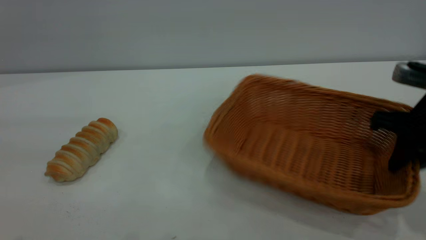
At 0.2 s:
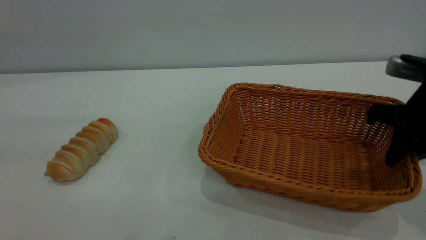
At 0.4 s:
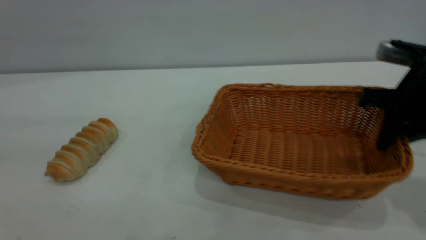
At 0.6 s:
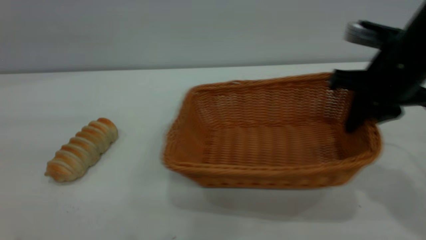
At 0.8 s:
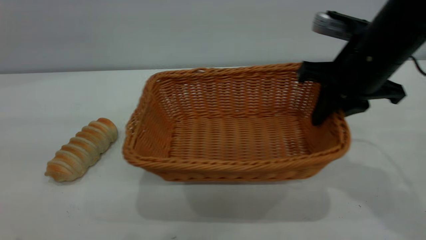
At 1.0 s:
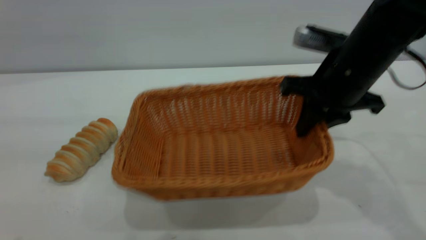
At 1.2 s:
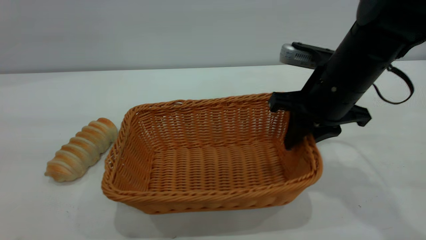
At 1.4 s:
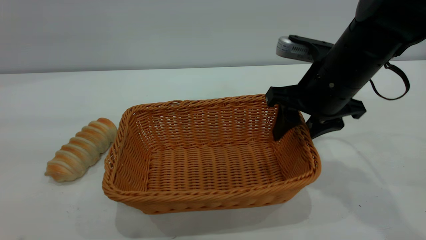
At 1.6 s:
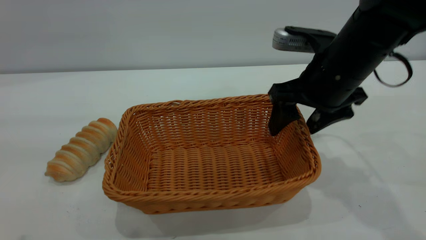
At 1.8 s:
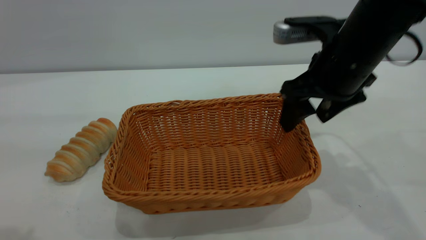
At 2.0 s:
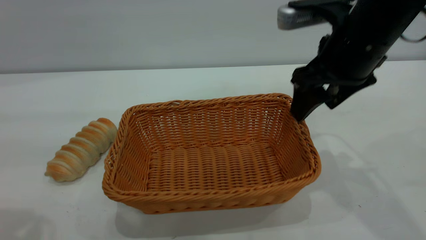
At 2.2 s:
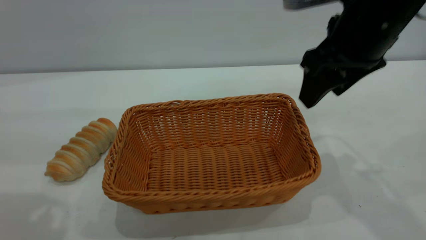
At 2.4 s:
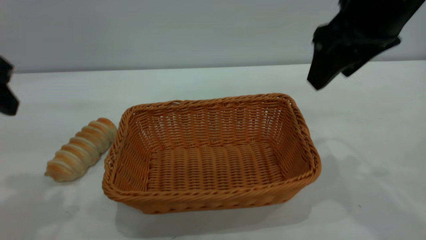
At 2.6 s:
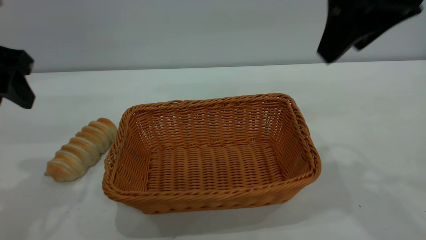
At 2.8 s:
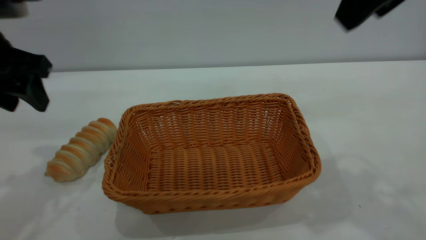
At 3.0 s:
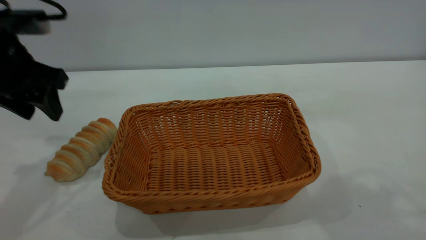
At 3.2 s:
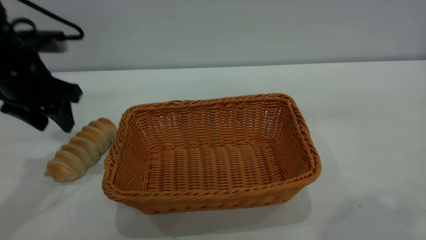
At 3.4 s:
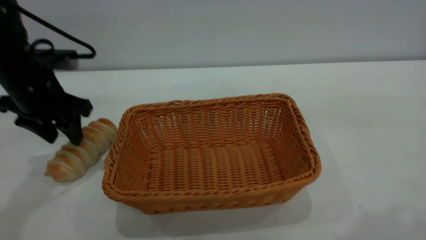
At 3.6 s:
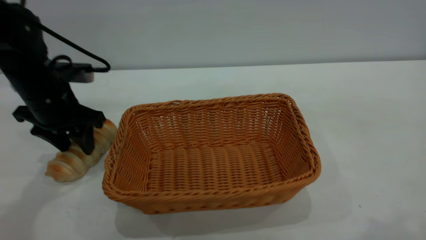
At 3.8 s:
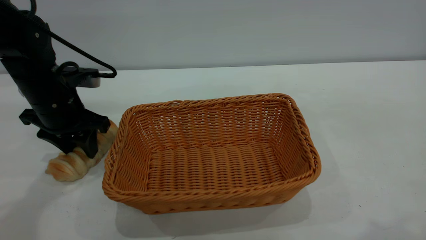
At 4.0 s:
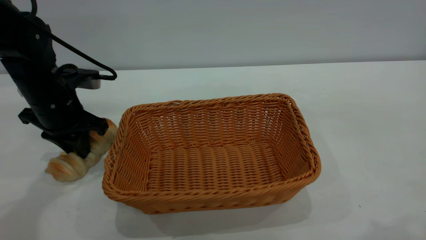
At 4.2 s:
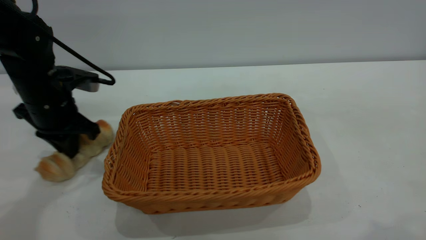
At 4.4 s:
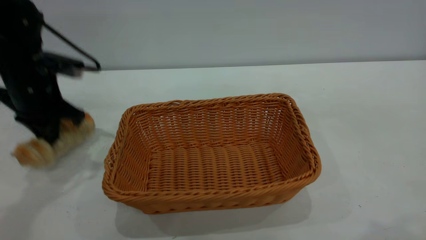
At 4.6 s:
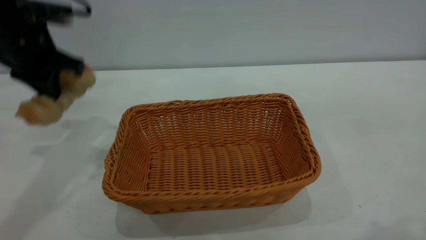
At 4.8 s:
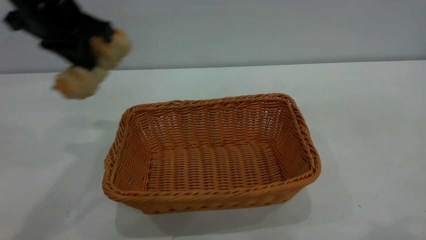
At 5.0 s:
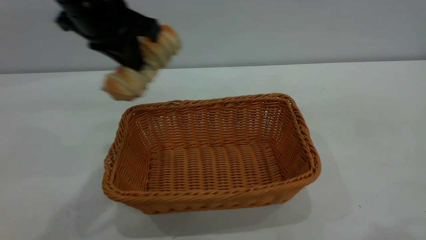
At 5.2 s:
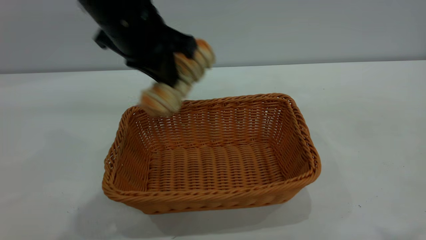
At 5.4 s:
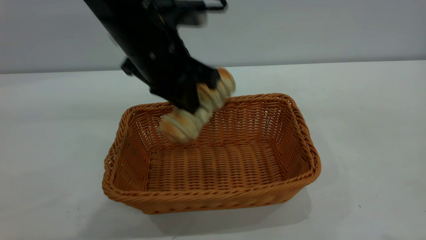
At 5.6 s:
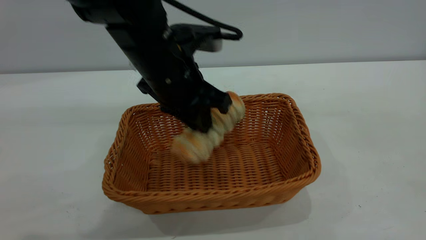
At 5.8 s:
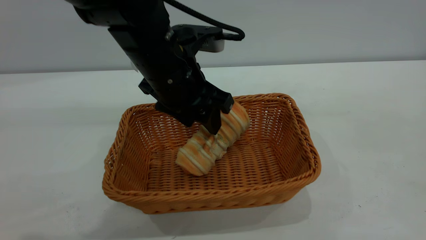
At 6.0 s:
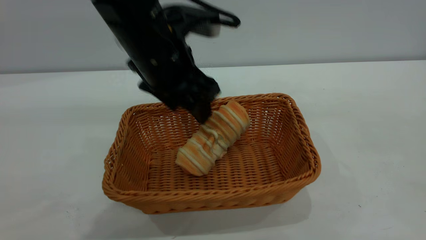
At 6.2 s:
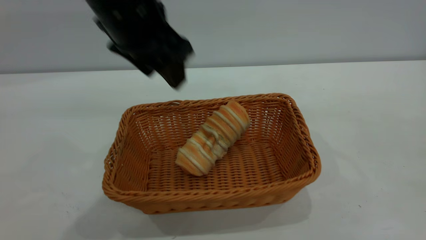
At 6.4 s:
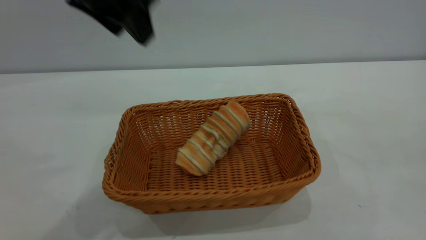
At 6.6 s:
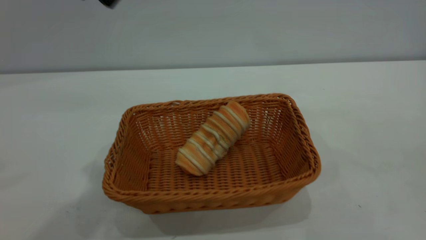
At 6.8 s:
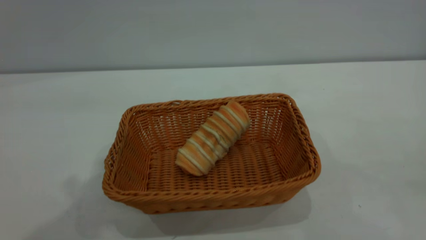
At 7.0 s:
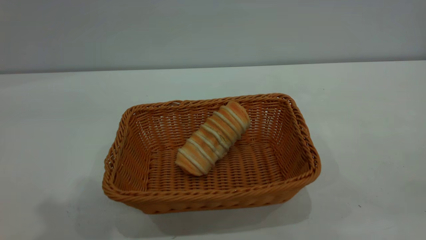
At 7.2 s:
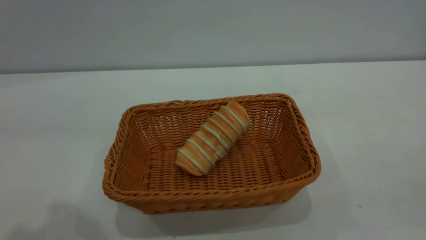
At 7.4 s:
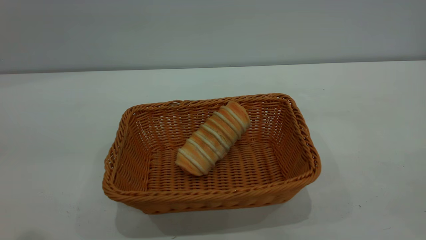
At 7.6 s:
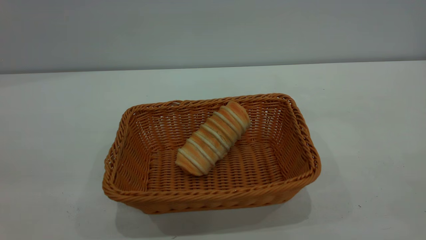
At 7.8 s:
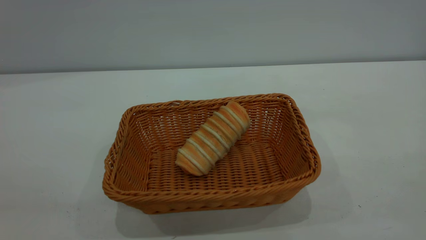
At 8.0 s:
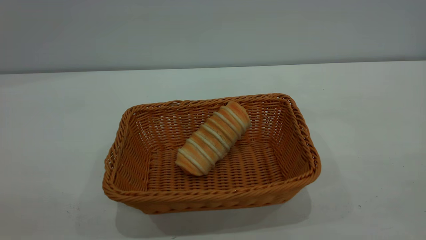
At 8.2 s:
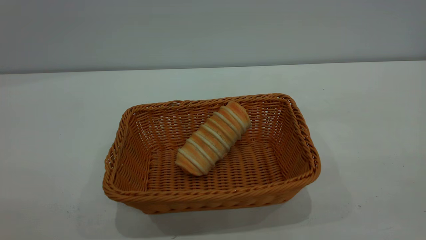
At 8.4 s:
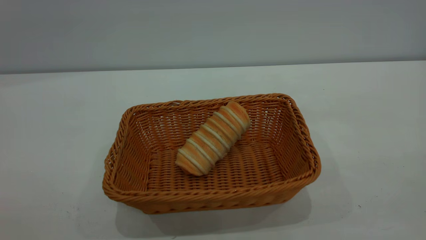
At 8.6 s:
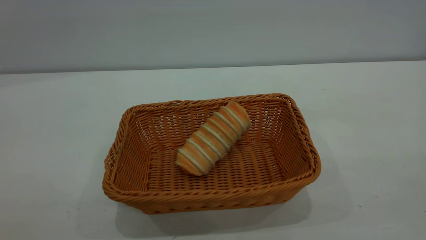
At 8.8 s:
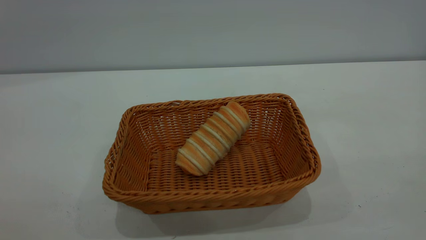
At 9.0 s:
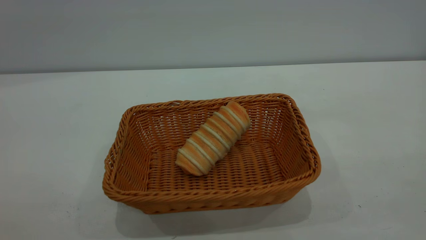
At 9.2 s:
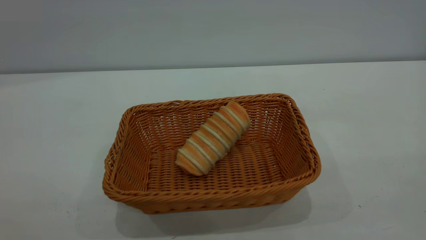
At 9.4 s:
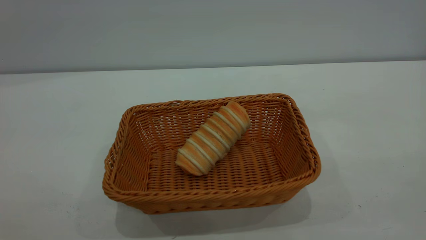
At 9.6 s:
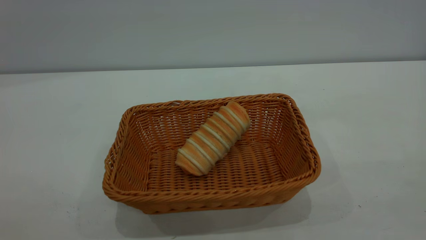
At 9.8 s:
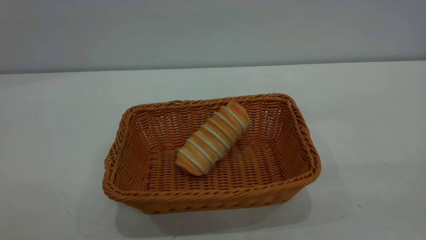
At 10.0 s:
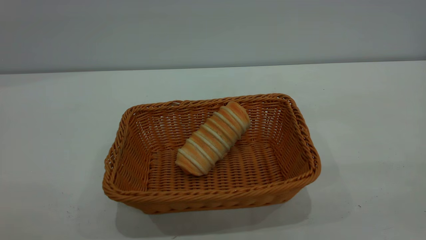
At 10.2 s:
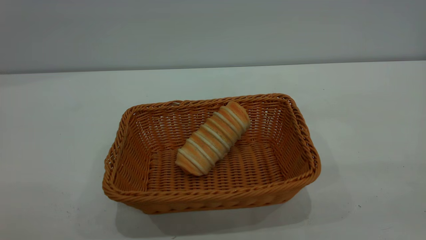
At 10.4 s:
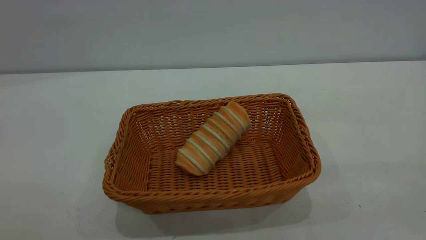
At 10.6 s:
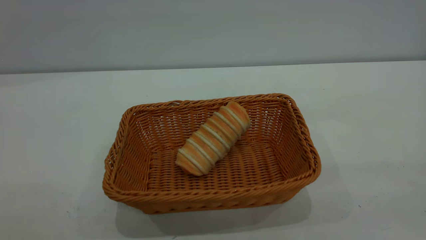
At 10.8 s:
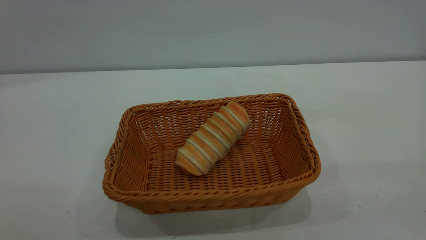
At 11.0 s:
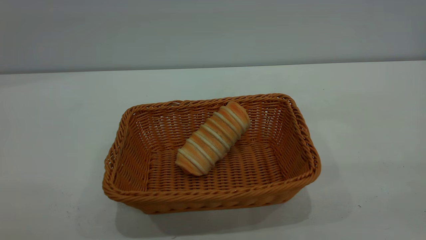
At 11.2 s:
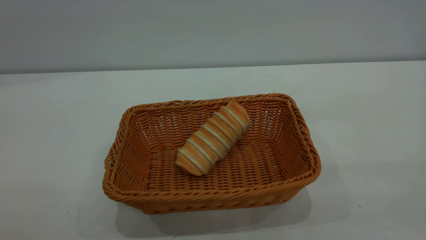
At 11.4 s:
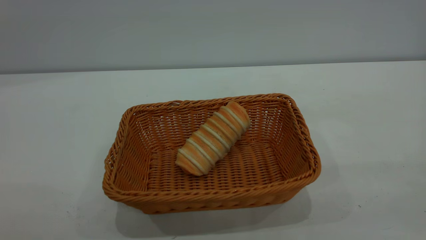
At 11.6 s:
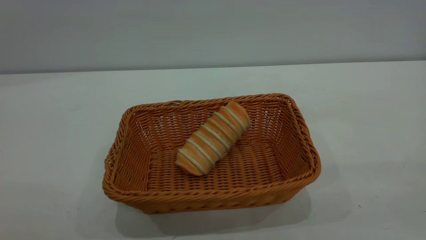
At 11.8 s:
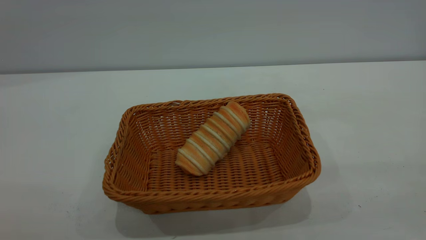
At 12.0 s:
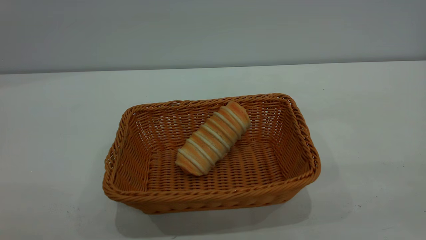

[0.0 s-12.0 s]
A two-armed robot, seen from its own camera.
Task of the whole recording: One hand grasps the yellow basket and places it in the middle of the table, while the other hand picks up the long bread and puts it into the yellow basket.
Step, 0.0 to 2.0 s: Move the basket to the center of view.
Step, 4.8 to 6.2 s: place the bread into the basket.
0.0 to 1.6 s: The right gripper heads to the left and forward, covering some 15 cm, and opens its fingers.
1.6 to 3.0 s: The left gripper travels forward and downward by roughly 25 cm. Meanwhile the right gripper travels upward and backward by approximately 25 cm.
3.0 to 4.4 s: The right gripper goes roughly 5 cm backward. Meanwhile the left gripper closes.
4.4 to 6.0 s: The left gripper goes some 20 cm to the right, and opens up. The right gripper changes place by approximately 5 cm.
6.0 to 7.6 s: The right gripper shifts about 15 cm backward and downward; the left gripper moves backward, to the left and upward, approximately 35 cm.
10.4 to 12.0 s: Both grippers stay about where they are.

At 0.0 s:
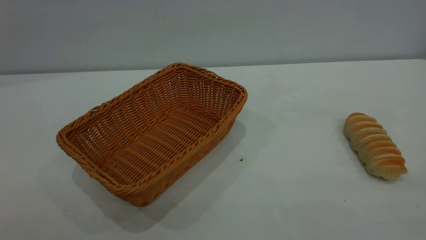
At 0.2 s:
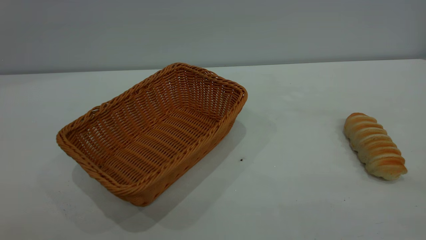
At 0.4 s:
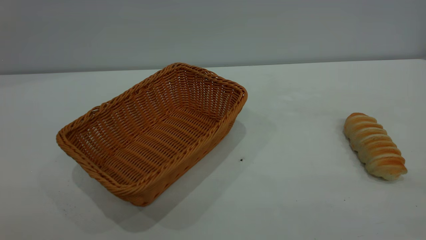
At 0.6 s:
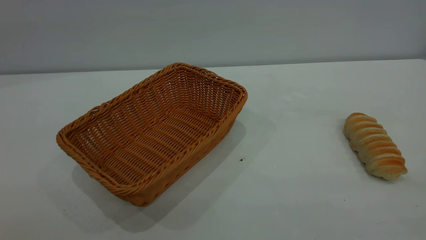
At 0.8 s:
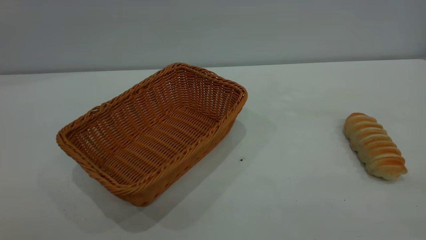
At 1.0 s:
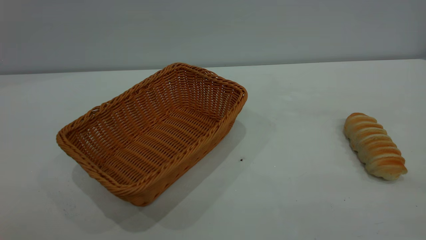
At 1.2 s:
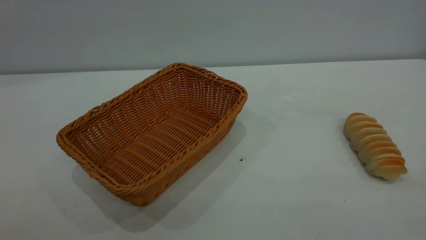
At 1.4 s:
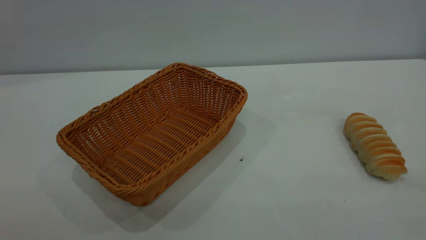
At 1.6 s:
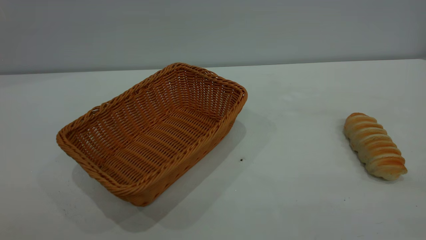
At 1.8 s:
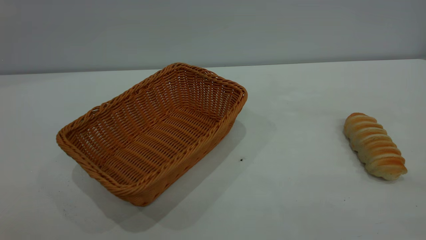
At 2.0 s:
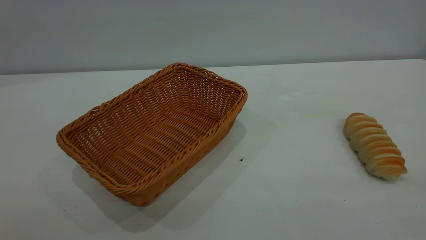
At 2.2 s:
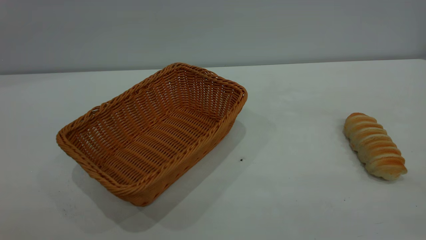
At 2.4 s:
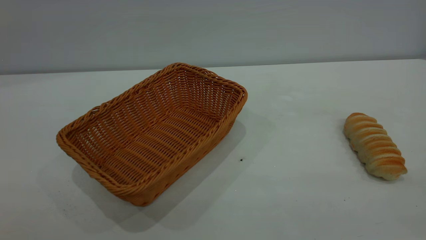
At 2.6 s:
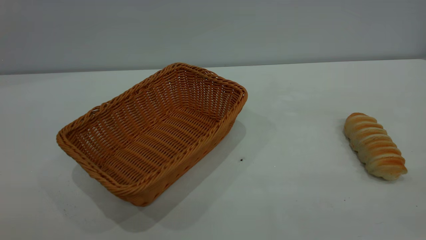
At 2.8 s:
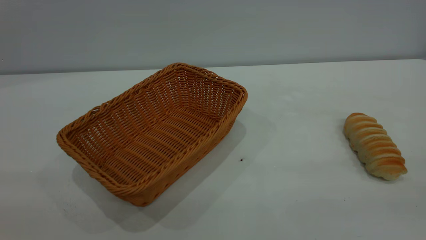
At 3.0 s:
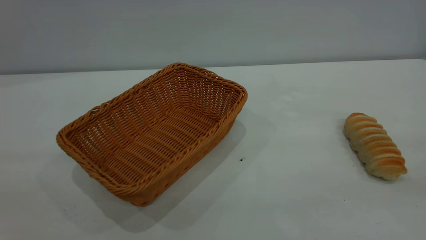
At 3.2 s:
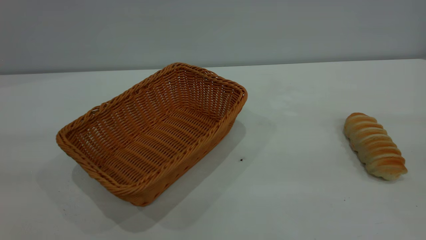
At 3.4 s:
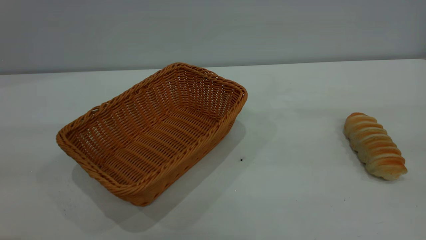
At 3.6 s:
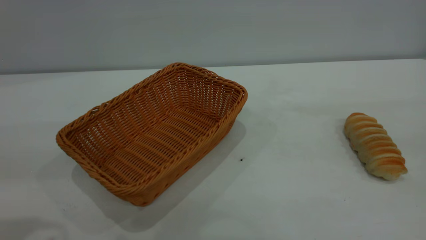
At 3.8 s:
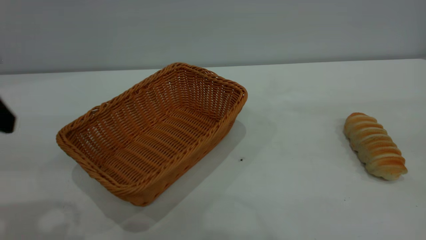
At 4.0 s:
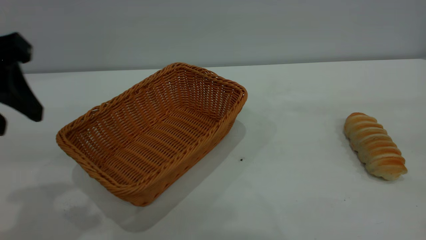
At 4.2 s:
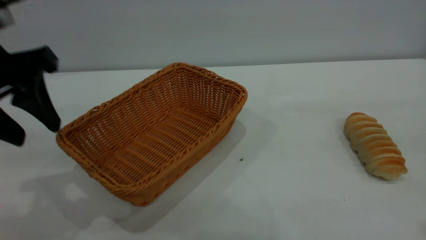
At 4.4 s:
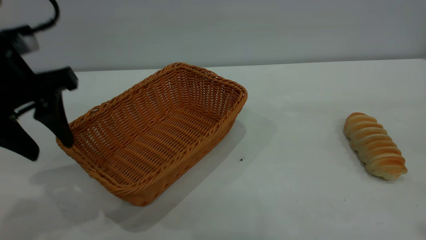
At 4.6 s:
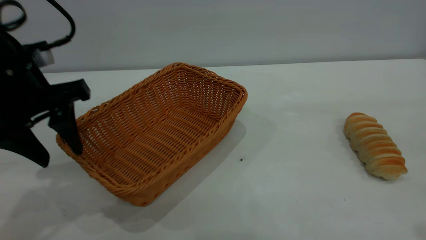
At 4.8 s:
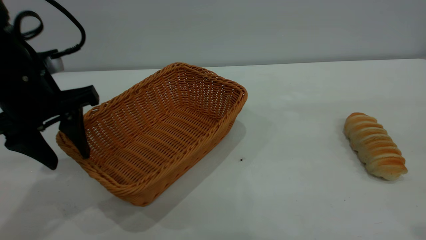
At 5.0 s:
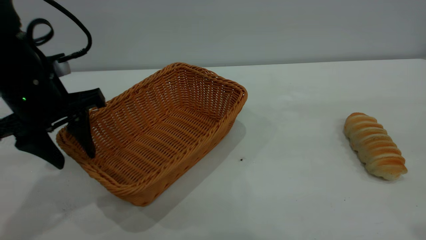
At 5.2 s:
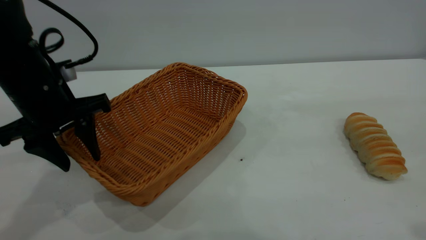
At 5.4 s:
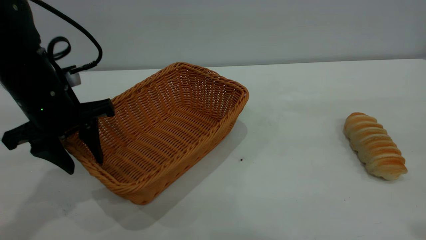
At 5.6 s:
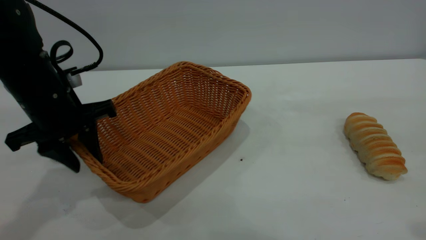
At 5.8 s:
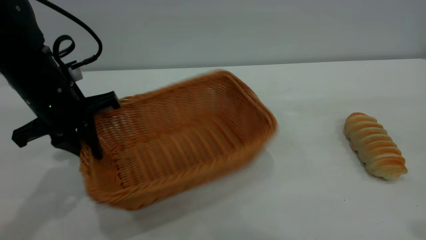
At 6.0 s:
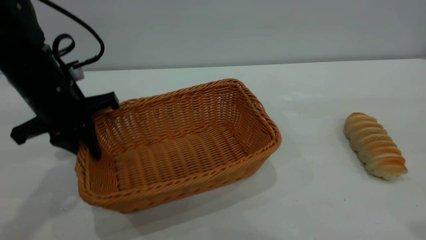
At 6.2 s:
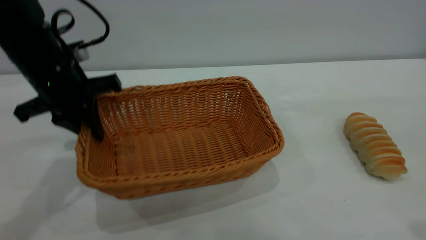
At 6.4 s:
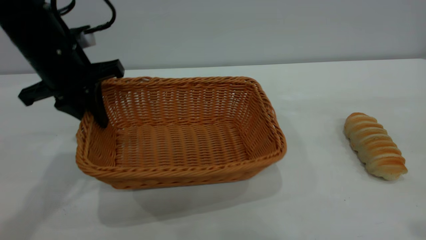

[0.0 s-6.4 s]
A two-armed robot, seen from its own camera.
Task of the whole recording: One hand grasps the yellow basket and places it in the middle of the table, while the other hand picks up the long bread and puts it into the yellow basket.
0.0 to 1.6 s: Neither gripper changes place.
3.2 to 4.8 s: The left gripper goes approximately 25 cm forward and downward.
4.8 to 6.4 s: The left gripper travels forward by some 5 cm, and closes up.
